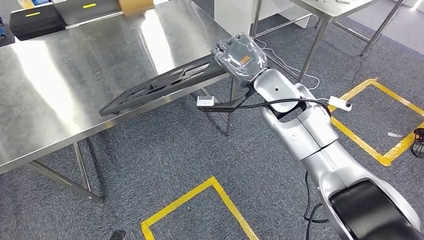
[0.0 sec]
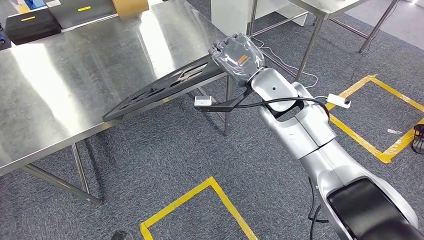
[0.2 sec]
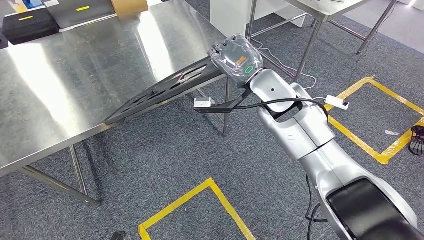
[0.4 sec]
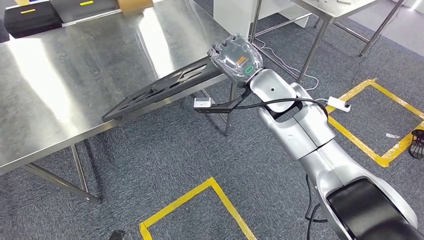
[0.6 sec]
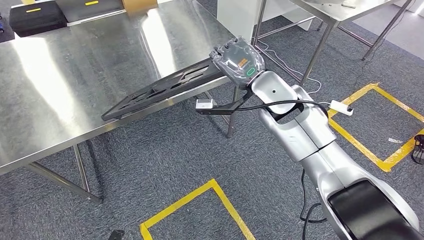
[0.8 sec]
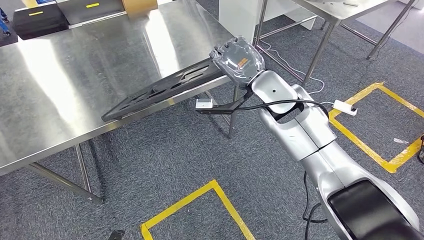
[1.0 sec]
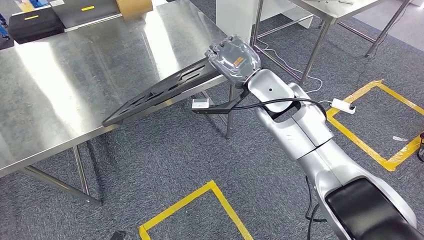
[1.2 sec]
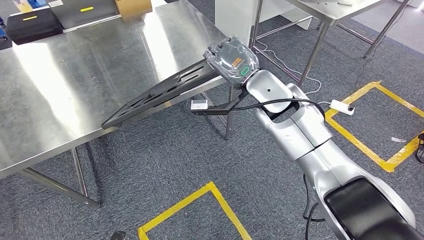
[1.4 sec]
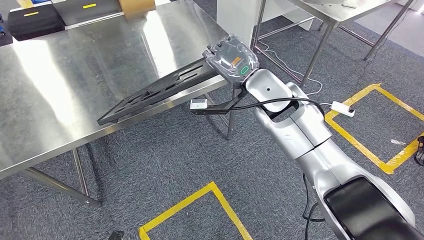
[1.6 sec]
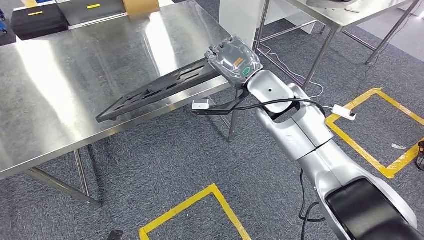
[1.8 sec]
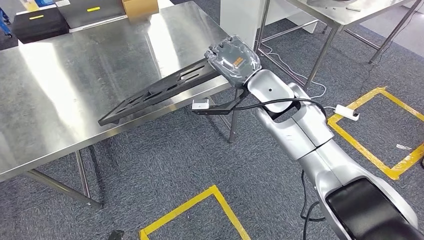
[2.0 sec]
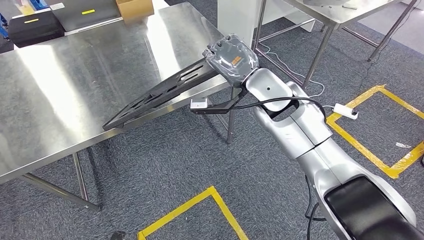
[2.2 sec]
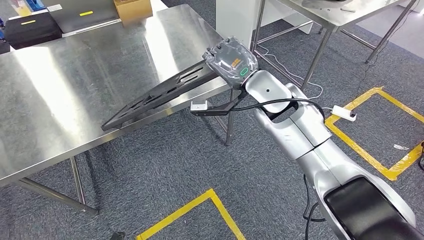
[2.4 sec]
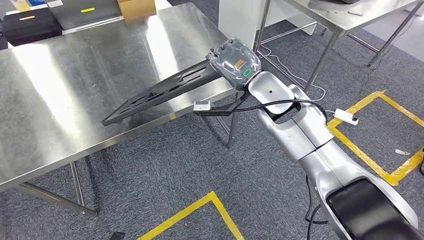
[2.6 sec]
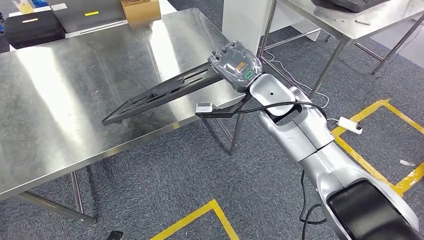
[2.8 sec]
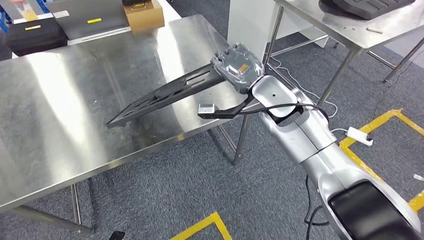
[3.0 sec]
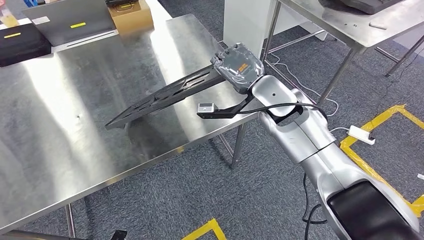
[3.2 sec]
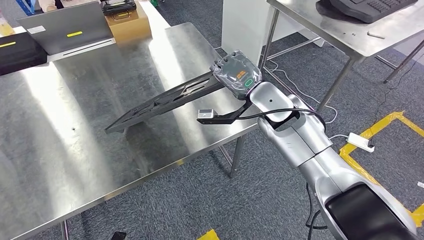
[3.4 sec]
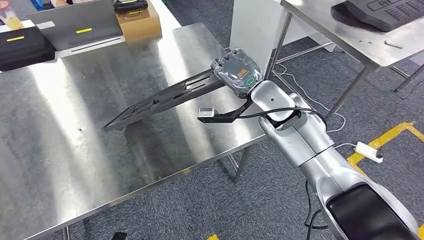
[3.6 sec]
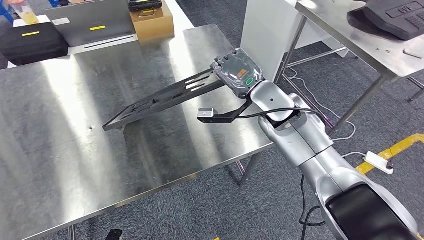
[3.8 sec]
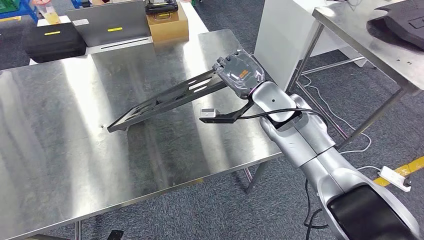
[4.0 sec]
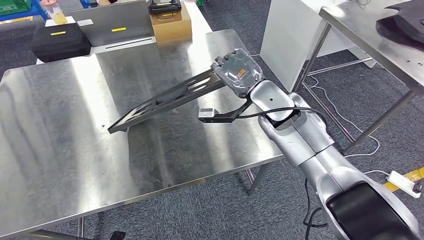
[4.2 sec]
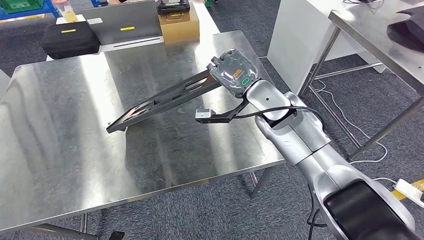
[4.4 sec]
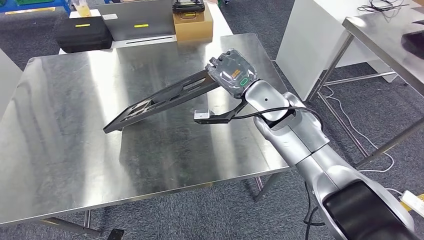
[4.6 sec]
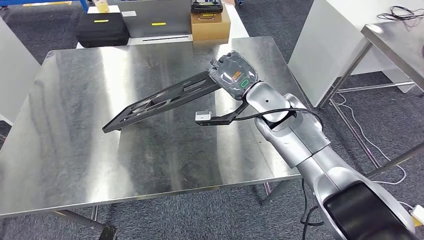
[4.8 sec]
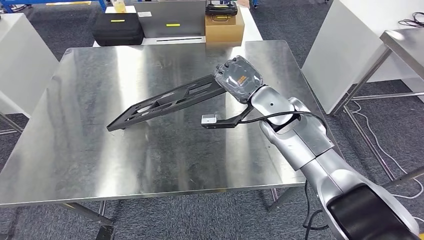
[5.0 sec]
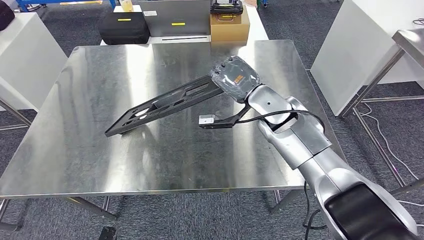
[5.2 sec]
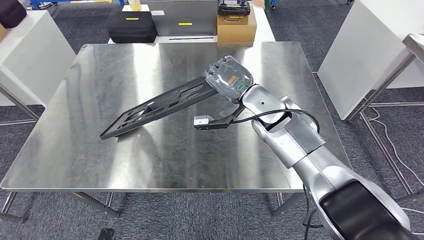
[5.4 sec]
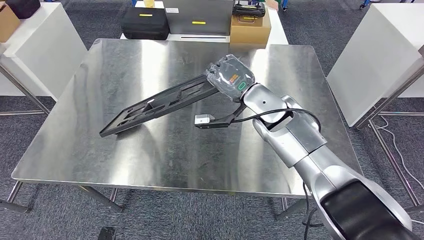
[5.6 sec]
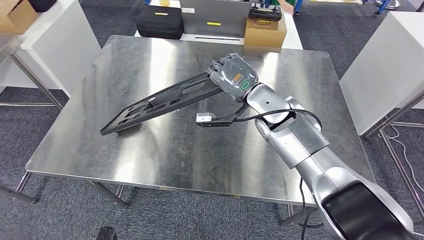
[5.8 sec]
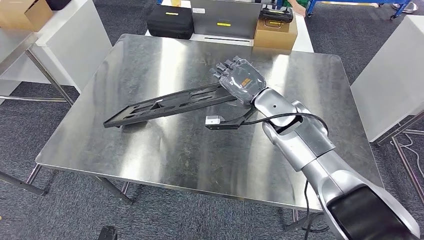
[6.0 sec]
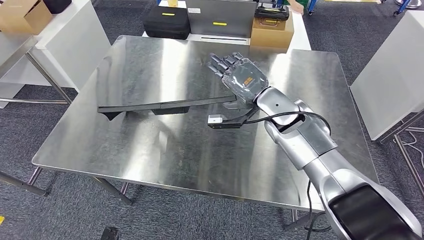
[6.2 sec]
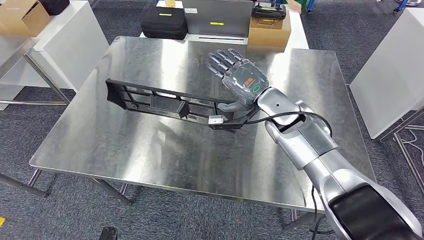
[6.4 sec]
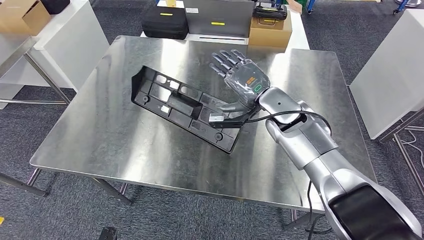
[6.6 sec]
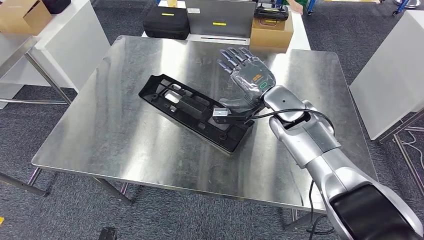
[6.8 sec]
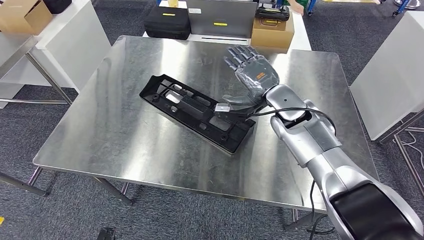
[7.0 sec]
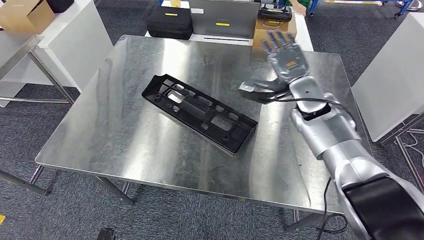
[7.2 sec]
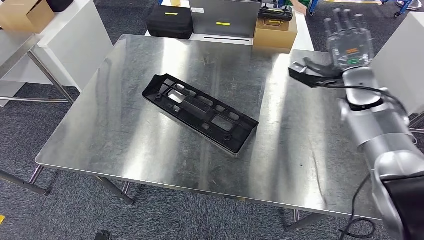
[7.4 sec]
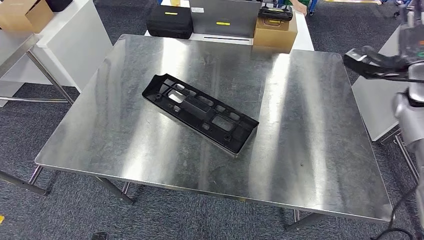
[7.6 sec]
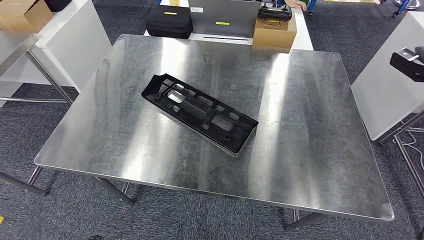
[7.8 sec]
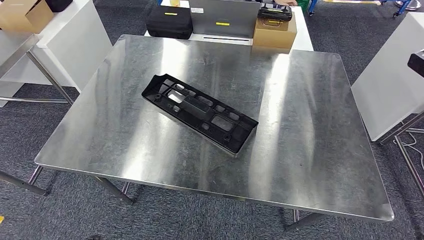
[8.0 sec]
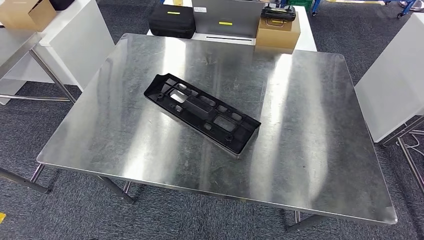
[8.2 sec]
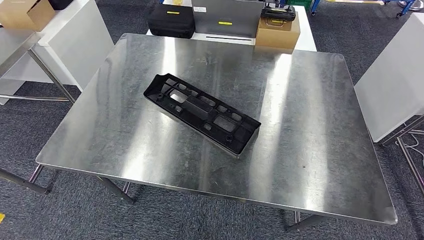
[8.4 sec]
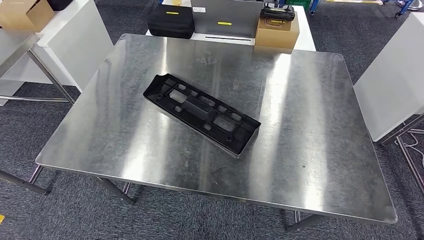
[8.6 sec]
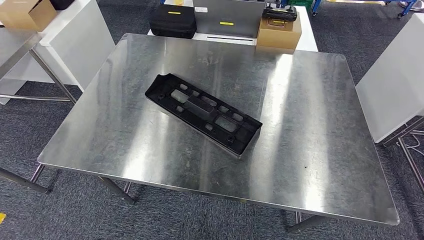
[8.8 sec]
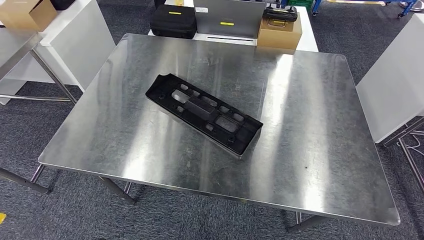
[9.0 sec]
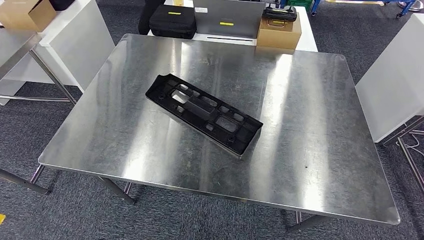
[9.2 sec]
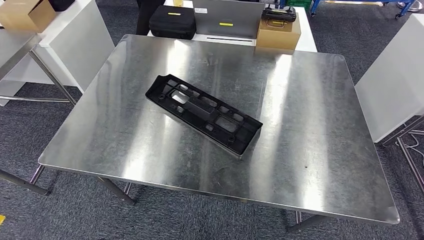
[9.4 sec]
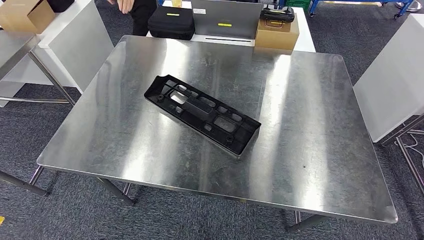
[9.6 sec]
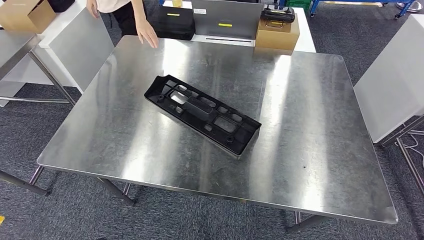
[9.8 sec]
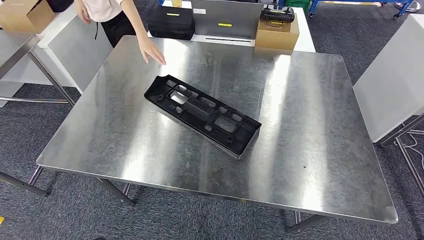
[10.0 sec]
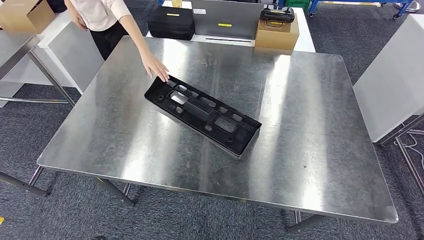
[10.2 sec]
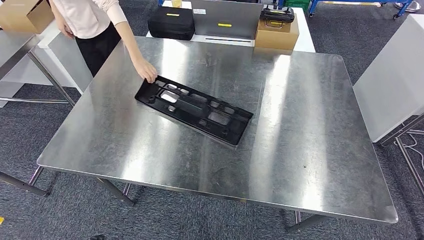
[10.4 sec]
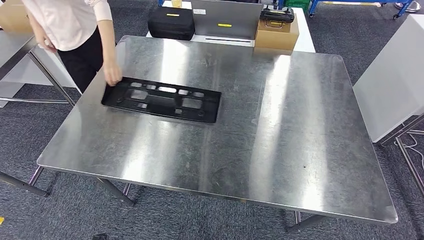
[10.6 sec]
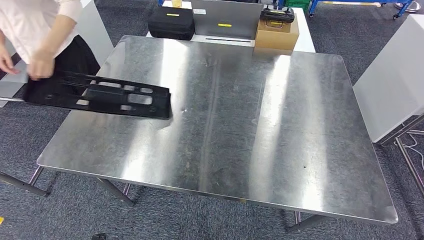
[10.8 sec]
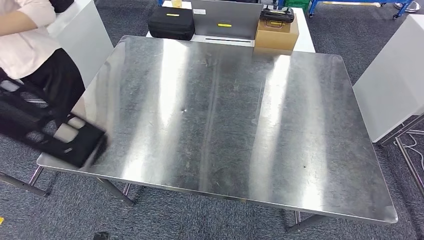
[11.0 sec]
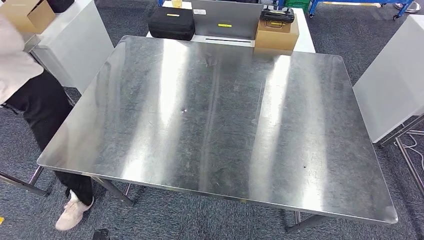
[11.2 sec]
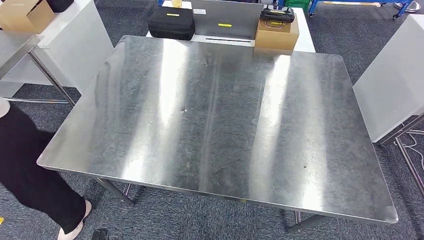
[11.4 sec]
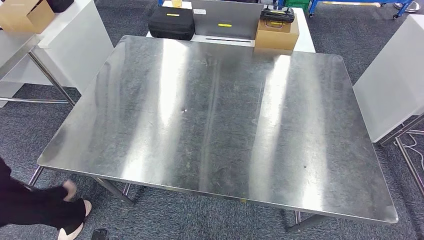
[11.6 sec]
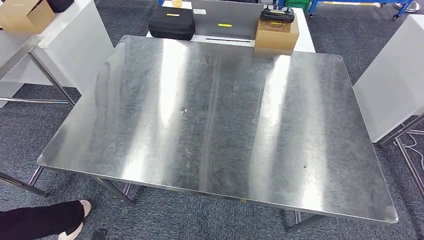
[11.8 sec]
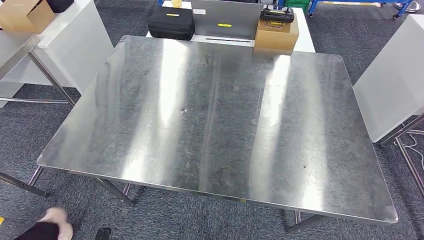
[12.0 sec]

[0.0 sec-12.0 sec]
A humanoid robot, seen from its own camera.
Step, 0.0 sec to 8.4 sec: Insert the large material into the corresponding hole on the workbench.
10.4 sec to 12.0 sec: The right hand is displaced to the left and downward by roughly 20 cm.

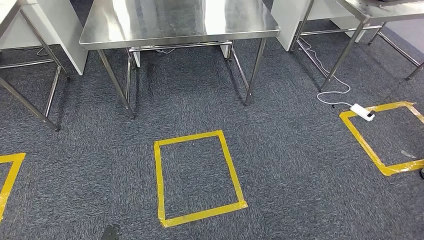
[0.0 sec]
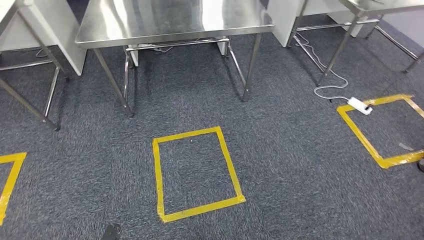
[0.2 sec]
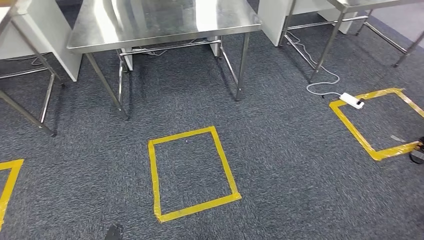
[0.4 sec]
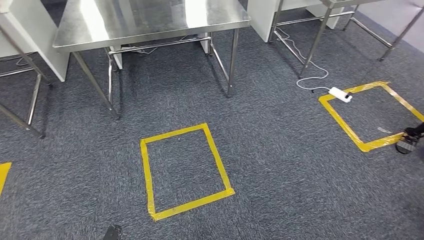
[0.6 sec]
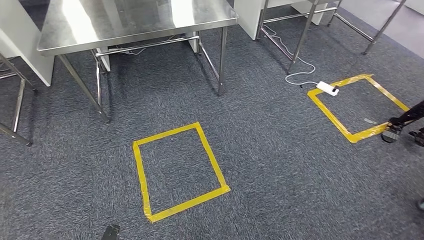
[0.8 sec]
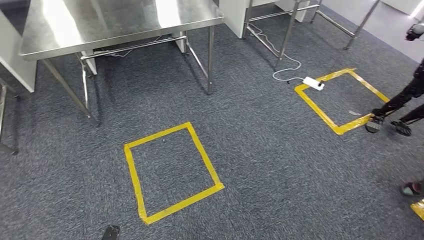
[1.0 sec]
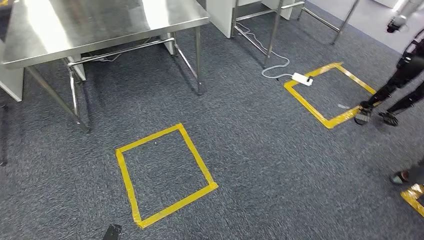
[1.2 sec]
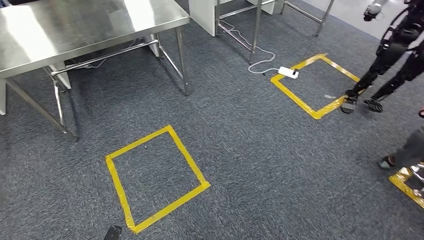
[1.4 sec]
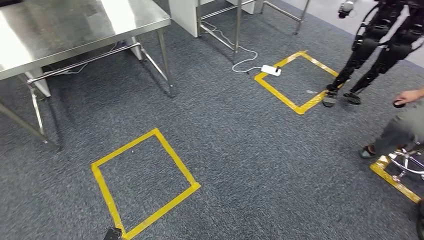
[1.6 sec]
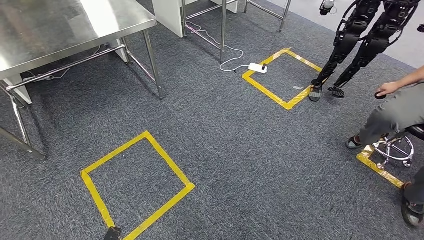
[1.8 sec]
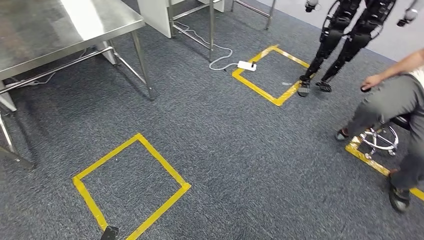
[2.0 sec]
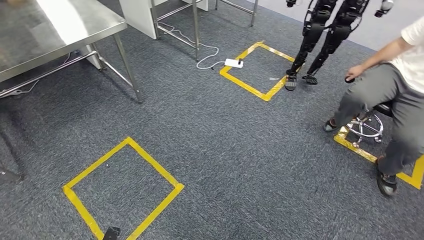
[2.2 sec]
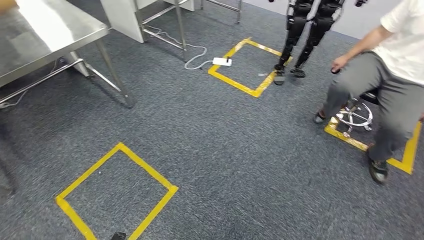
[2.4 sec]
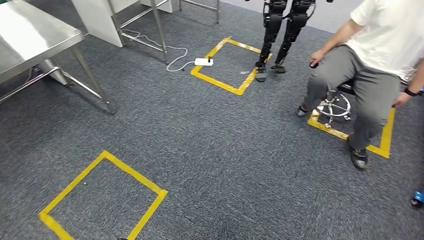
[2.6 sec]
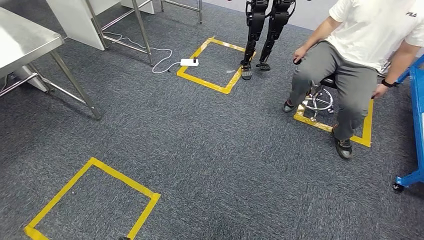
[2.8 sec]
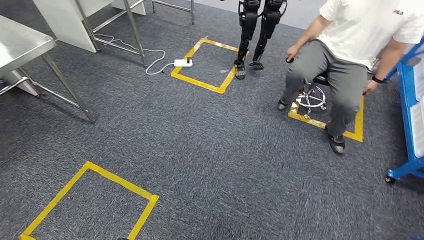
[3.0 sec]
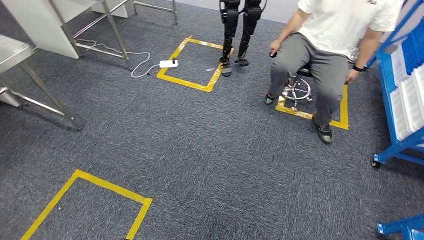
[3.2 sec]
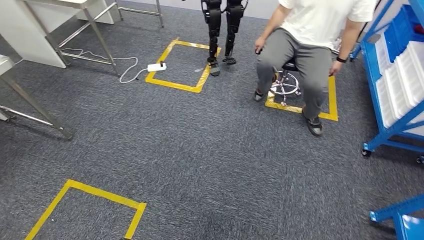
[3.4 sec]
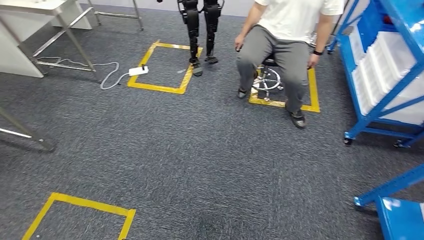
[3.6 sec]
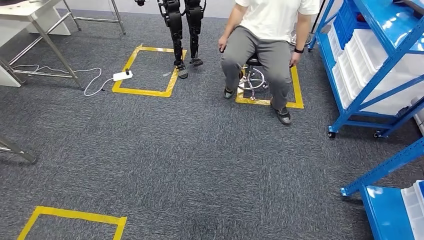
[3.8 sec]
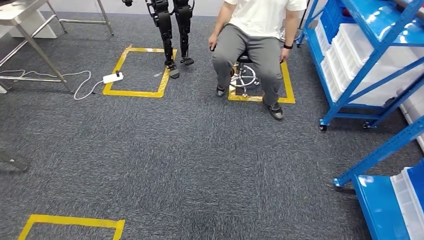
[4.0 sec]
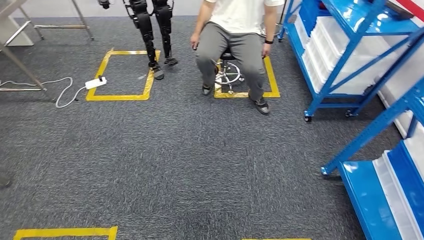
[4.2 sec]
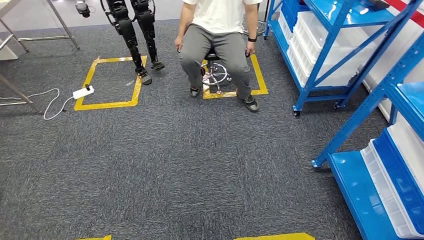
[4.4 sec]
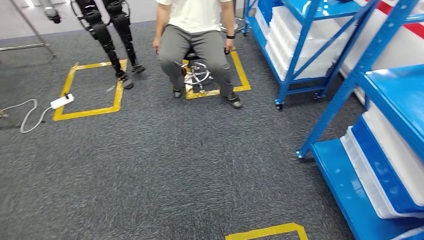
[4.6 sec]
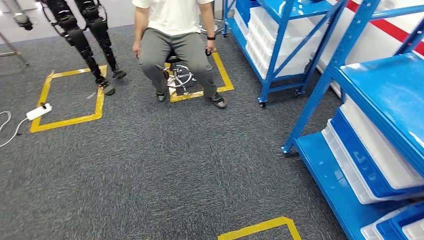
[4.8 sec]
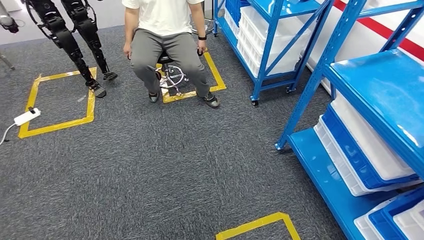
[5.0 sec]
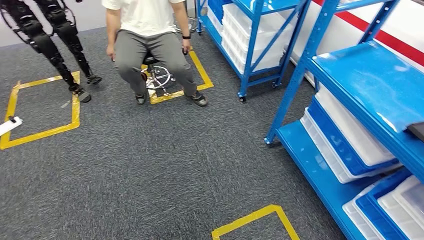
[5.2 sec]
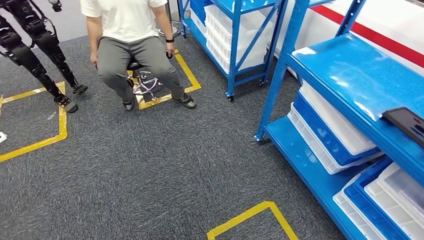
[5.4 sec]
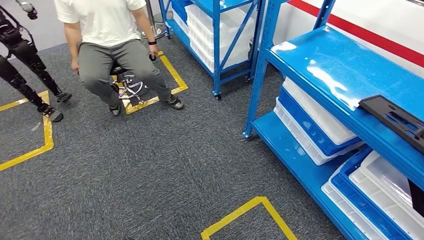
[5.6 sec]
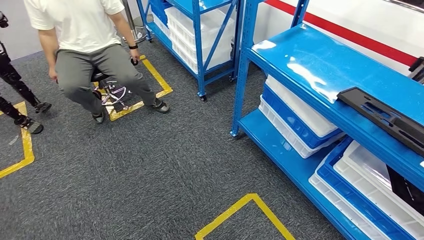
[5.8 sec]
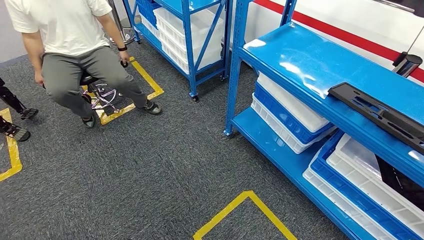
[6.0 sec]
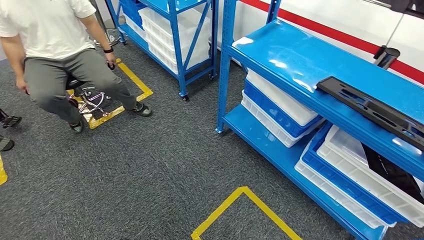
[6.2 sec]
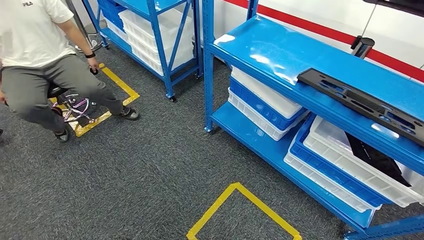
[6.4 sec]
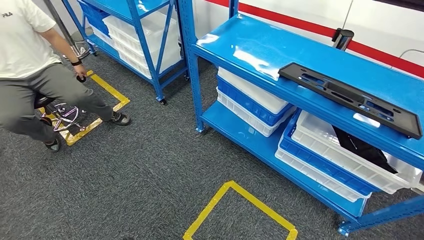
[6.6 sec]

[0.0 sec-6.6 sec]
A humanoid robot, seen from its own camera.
Step, 0.0 sec to 6.6 sec: Move to the initial position of the shelf.
